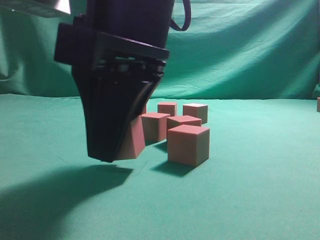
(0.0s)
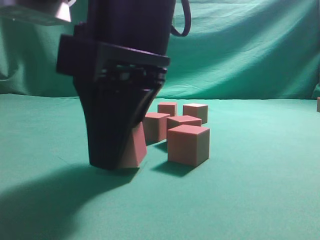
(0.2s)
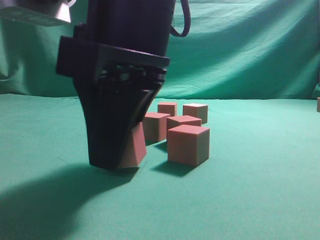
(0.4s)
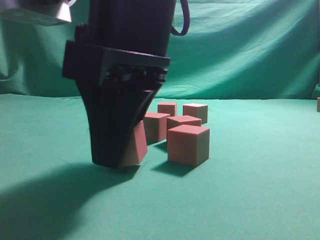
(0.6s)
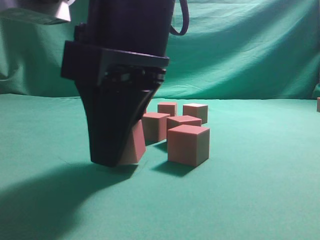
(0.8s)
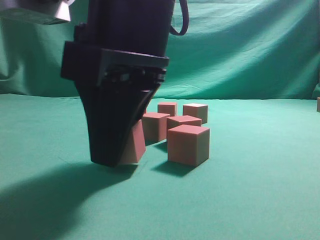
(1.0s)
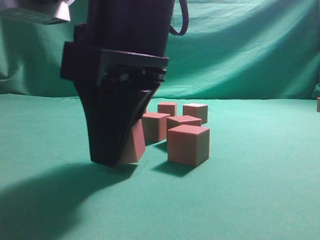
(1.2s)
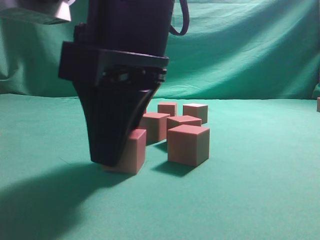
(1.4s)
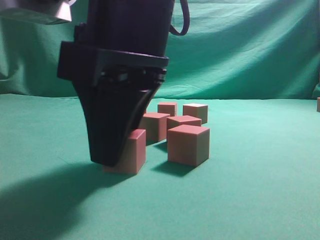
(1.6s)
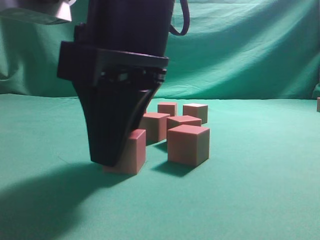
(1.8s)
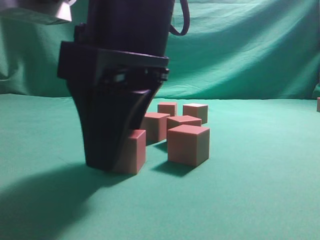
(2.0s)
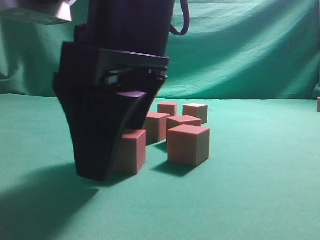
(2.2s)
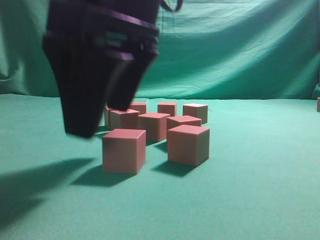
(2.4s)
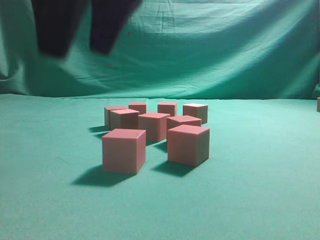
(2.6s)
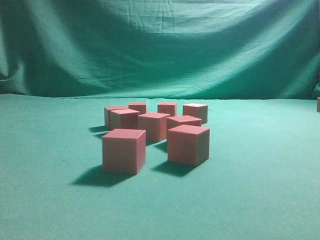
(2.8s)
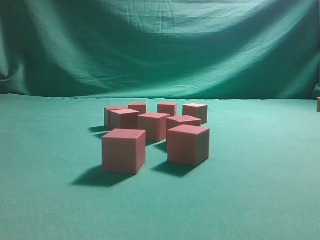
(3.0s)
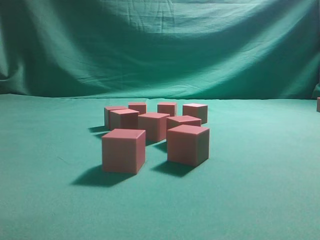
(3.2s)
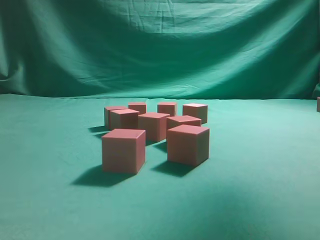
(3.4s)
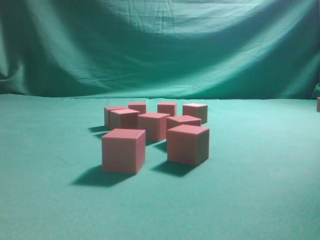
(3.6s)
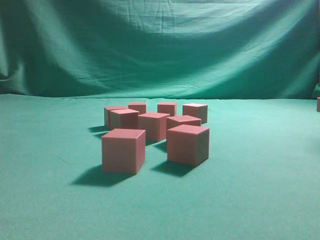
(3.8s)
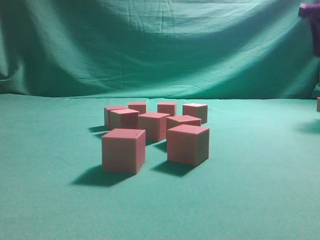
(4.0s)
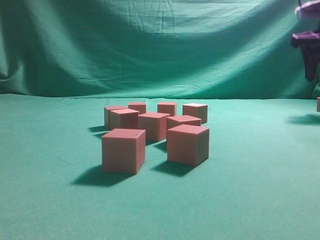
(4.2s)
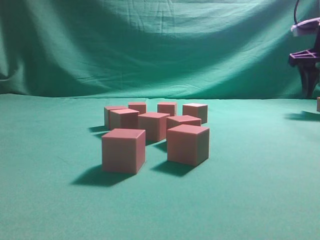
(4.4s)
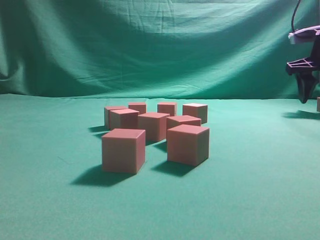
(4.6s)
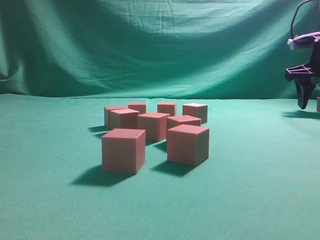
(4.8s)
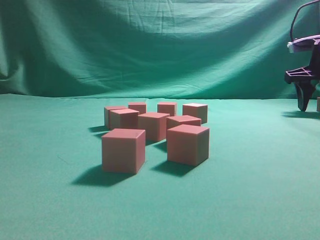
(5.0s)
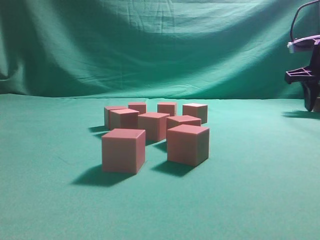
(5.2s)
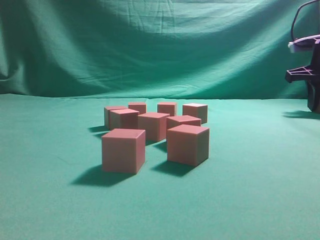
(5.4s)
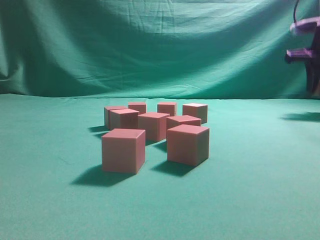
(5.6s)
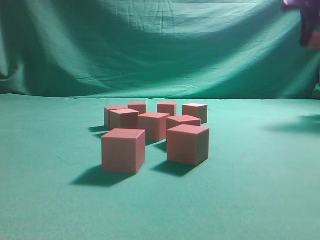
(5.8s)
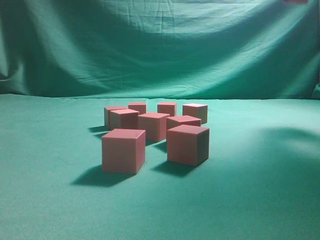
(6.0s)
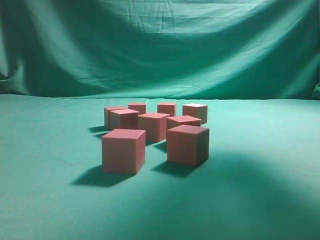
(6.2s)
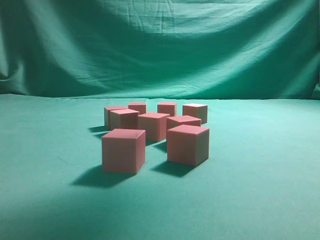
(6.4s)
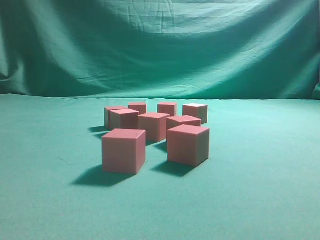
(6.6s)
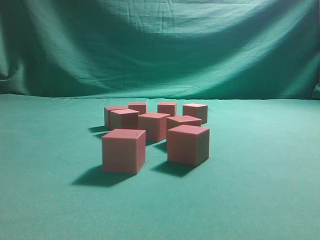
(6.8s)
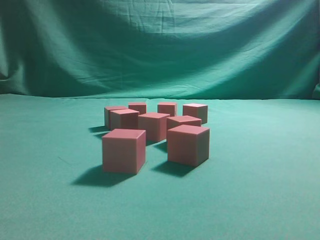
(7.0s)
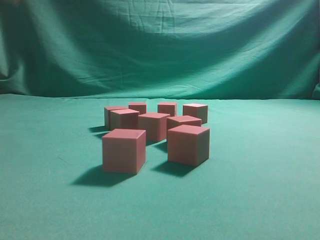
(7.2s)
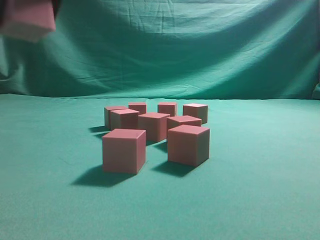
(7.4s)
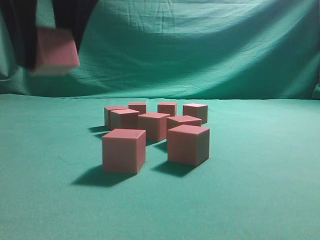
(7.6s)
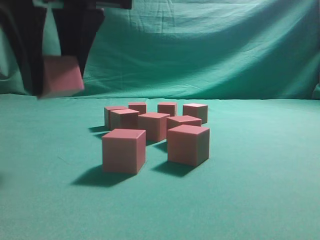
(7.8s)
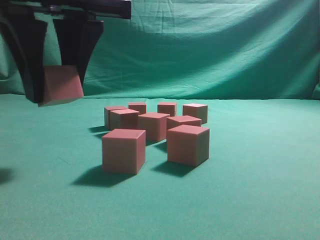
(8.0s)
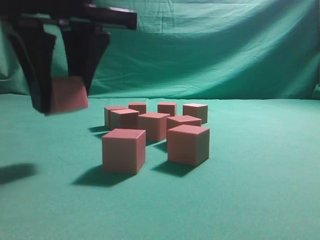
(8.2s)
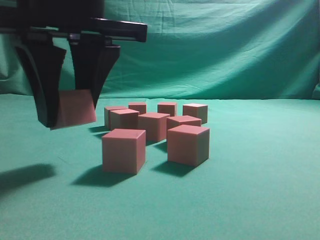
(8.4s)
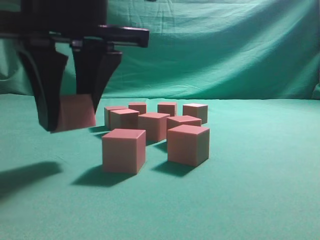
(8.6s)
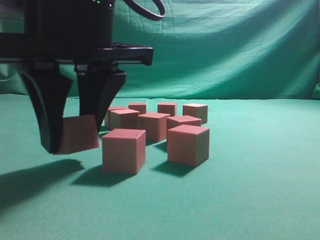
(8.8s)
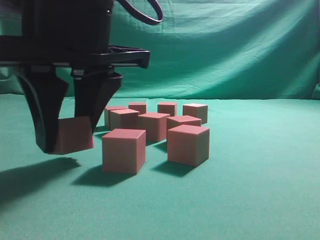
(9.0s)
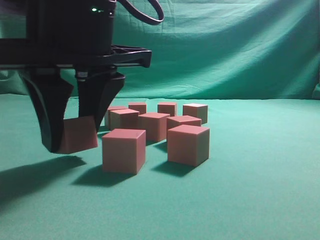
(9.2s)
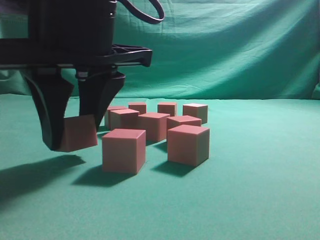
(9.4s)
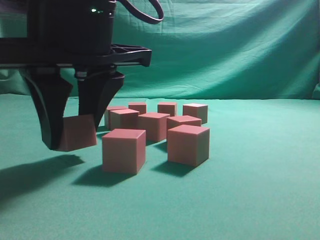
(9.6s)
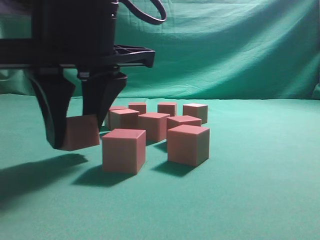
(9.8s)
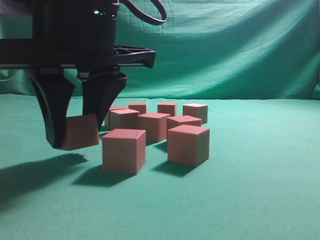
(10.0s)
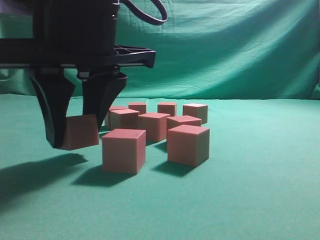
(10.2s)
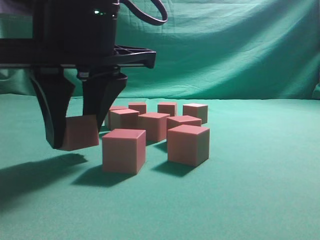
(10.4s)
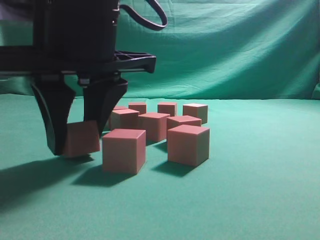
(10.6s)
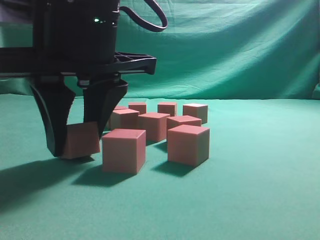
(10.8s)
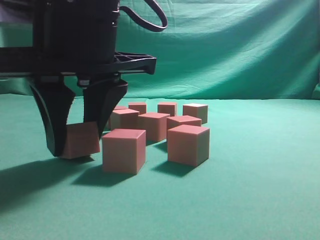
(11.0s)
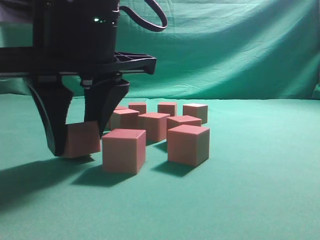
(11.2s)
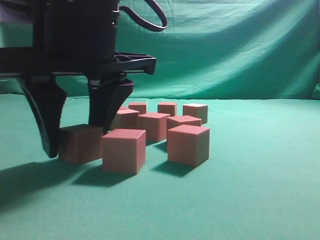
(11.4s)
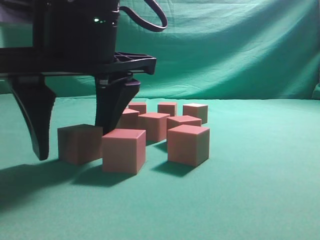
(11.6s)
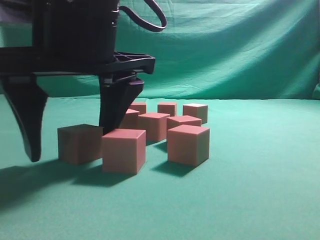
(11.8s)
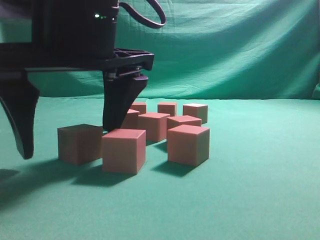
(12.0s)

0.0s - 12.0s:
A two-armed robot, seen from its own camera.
Task of the whole recording: pick up the multiple cubes in two columns one by one and place them in another position on the table.
Step, 0.0s - 2.4s: Place the block at the correct position to assemble the letter S.
Step, 2.6s - 5.6s: Pick up the block on the table.
0.0s - 1.6s: Both grippers stay put.
1.6s - 3.0s: The right gripper goes approximately 20 cm upward, and opens its fingers.
3.0s - 4.4s: The right gripper is displaced to the right, forward and downward by some 40 cm.
4.4s - 6.0s: The right gripper travels upward, backward and to the left by about 20 cm, and closes.
6.0s - 7.6s: The right gripper shifts approximately 40 cm to the left and backward.
7.6s - 9.0s: The right gripper shifts roughly 5 cm downward.
9.0s - 10.4s: Both grippers stay put.
10.4s - 12.0s: The right gripper opens its fingers.

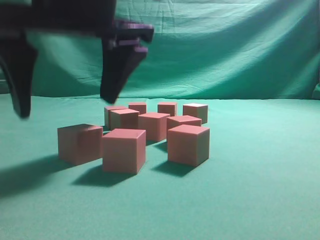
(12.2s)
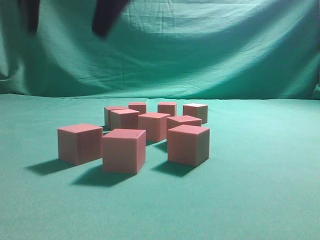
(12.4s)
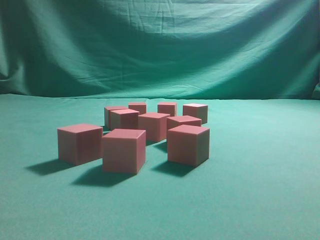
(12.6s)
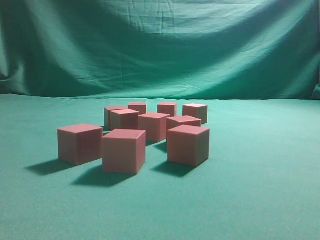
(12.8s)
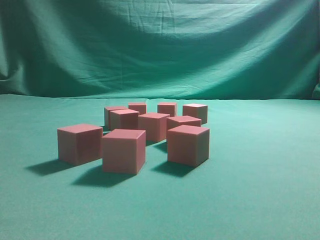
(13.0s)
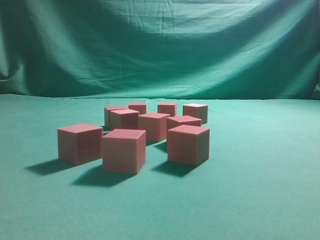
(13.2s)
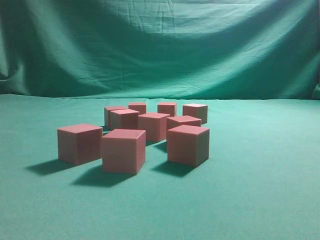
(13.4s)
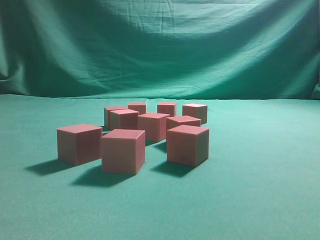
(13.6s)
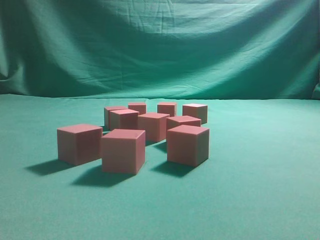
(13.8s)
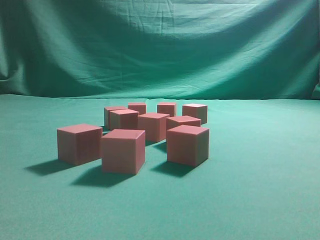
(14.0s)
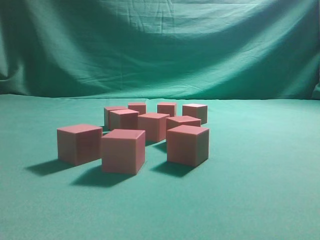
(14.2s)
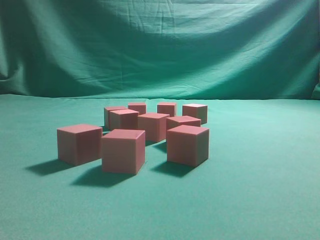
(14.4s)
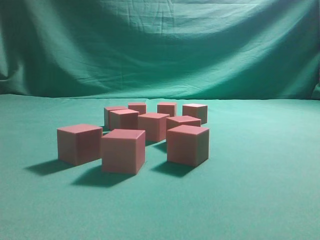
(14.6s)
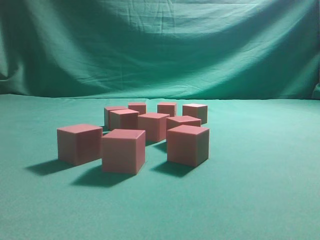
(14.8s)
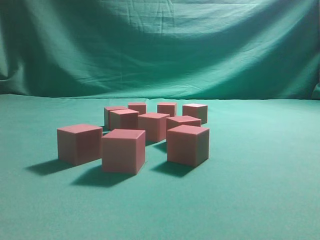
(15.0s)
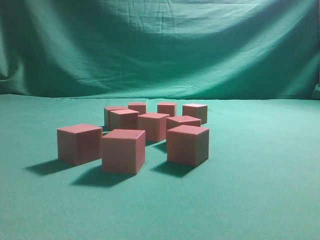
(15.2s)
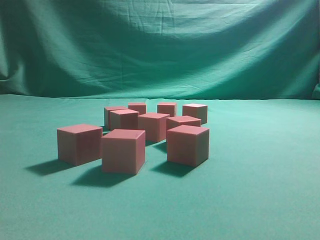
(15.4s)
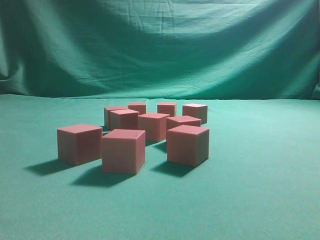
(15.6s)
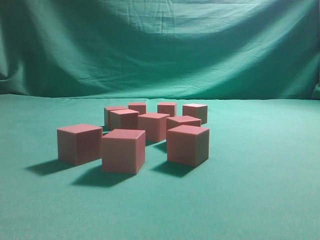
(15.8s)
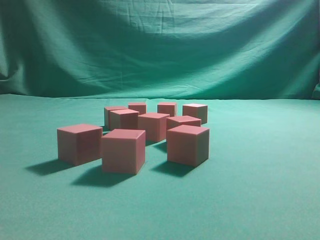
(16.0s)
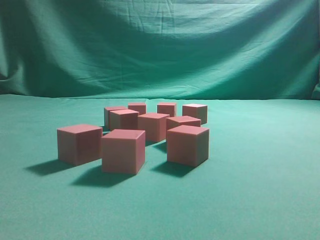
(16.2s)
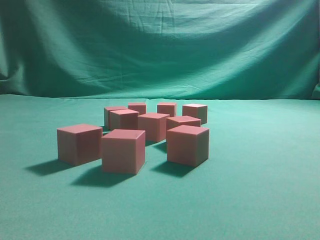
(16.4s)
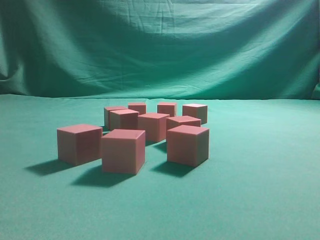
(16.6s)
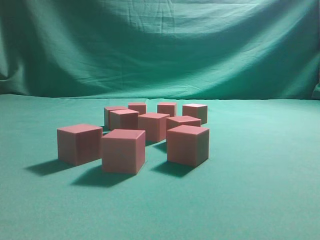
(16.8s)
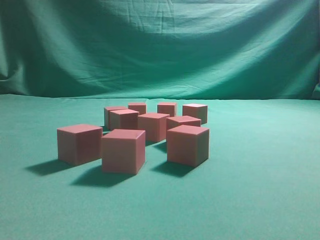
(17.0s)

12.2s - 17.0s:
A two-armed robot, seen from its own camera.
Task of the whole recording: pick up the multiple cubes in two columns one by one and place them in another position on the table.
12.2s - 13.8s: The right gripper moves to the right, upward and backward, about 40 cm, and closes.
